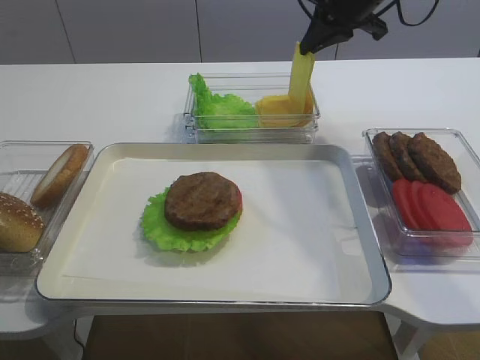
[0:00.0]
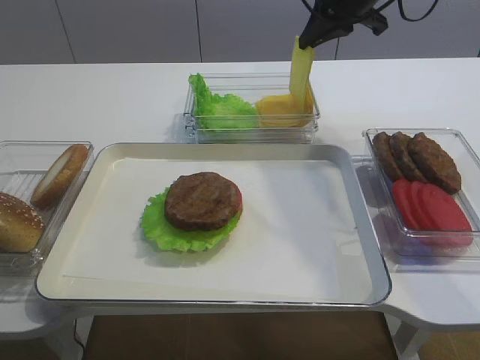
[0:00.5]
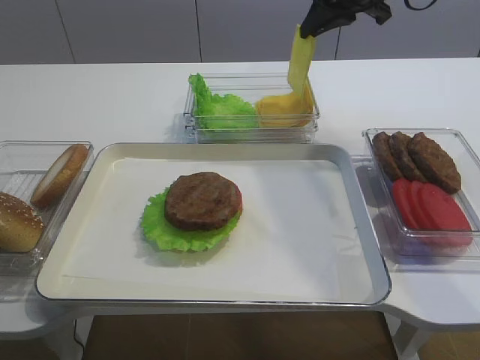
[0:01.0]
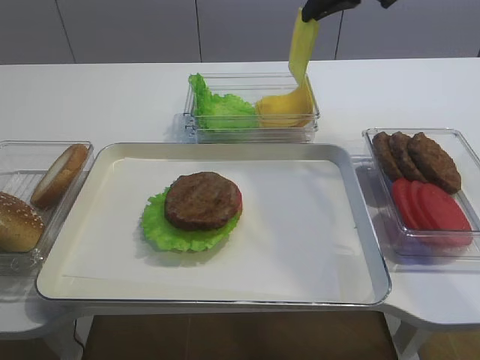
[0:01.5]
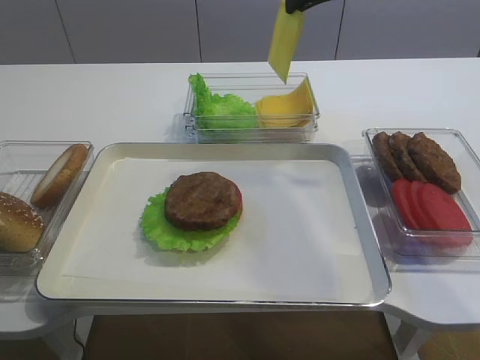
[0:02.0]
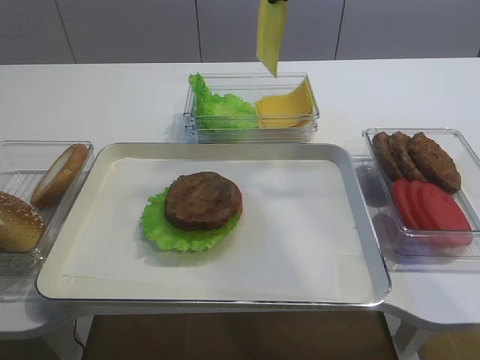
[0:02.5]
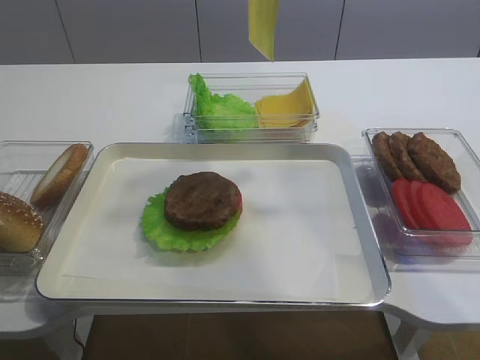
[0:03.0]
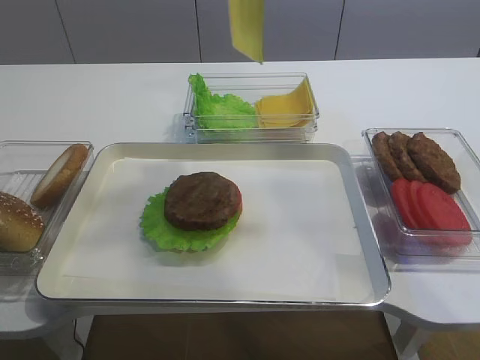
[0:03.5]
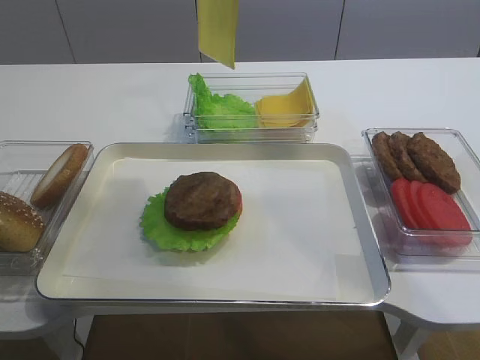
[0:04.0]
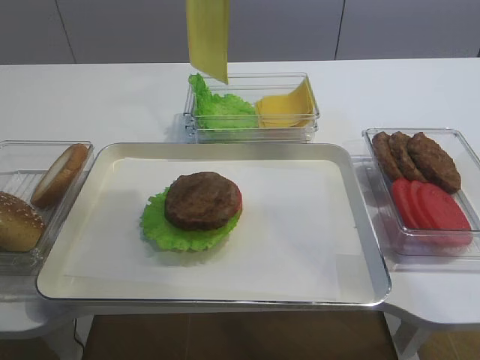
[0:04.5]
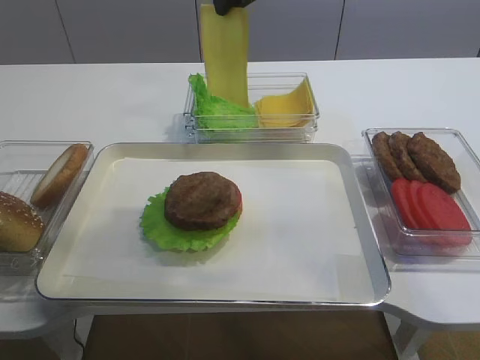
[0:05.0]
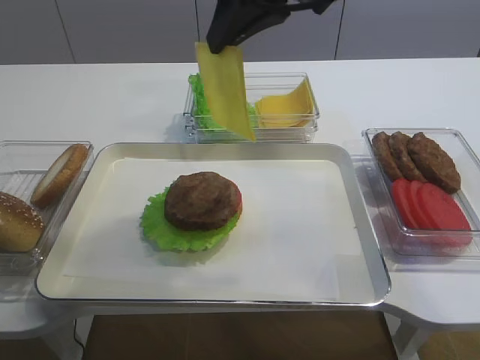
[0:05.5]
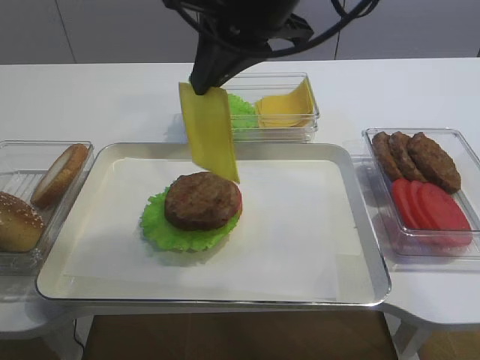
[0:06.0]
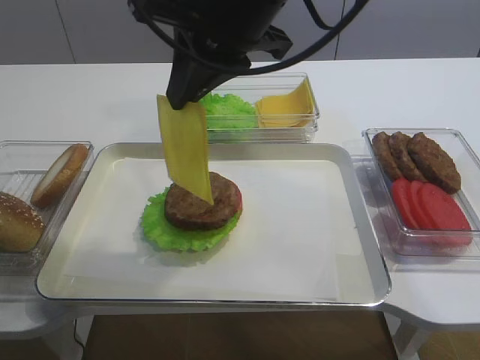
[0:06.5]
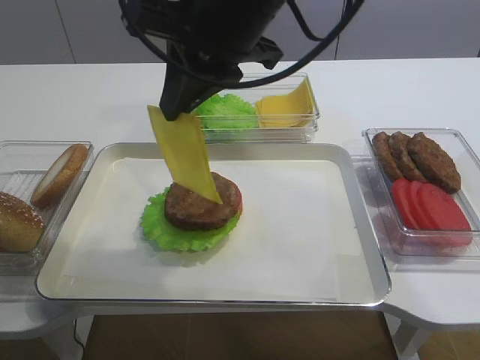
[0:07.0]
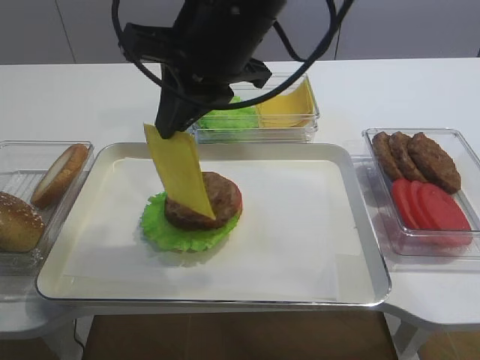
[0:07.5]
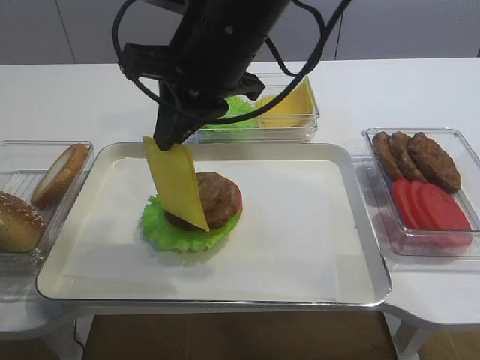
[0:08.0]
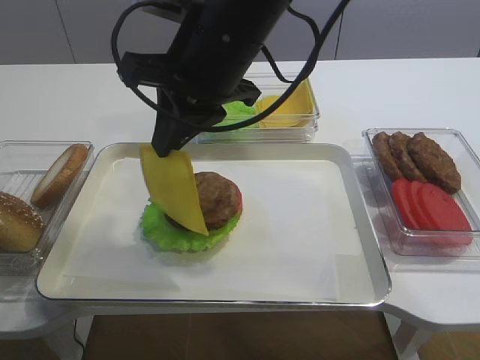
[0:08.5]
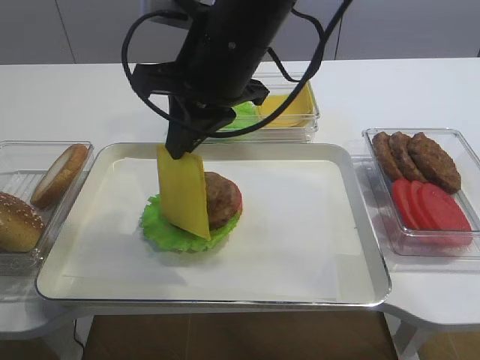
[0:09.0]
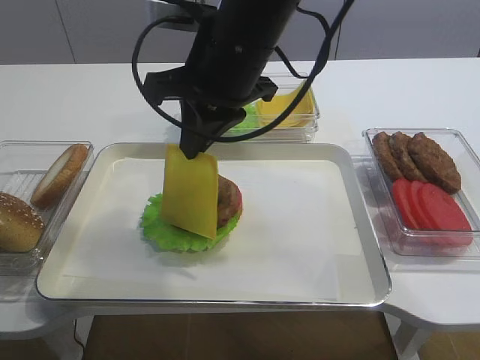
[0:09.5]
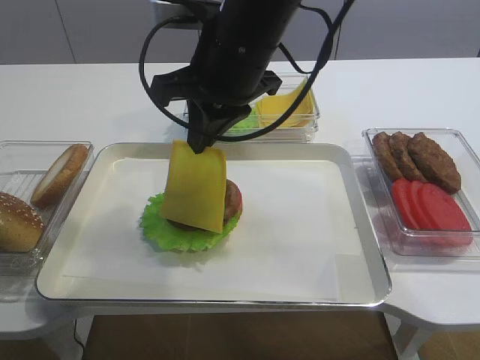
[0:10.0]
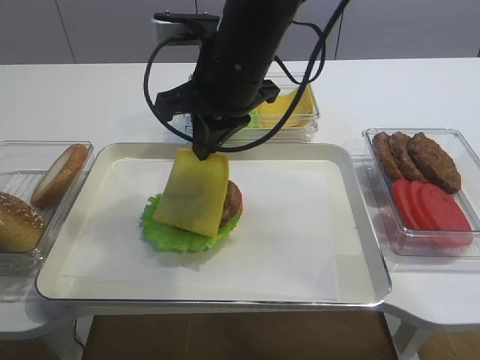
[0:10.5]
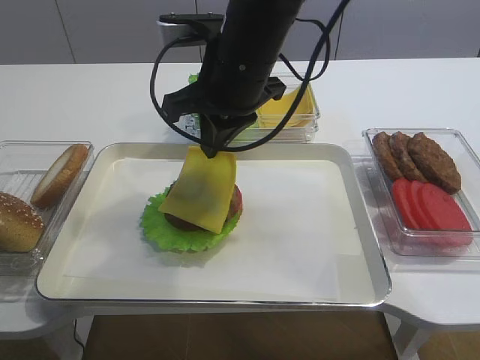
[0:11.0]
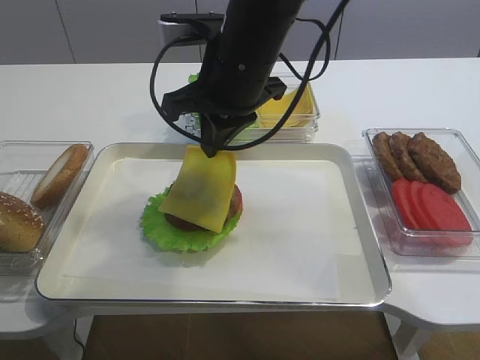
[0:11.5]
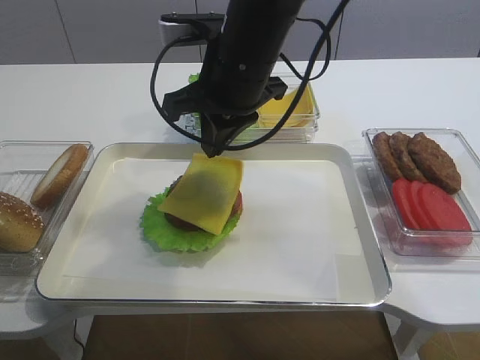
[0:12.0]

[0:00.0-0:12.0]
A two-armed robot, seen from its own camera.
Step, 0:00.0 to 0:02.0: Pick up the cheese slice with the right gripper.
0:00.0 to 0:02.0: The right gripper moves upward, some 5 cm.
0:02.0 to 0:04.0: The right gripper heads backward, to the left and upward, covering roughly 15 cm.
0:04.0 to 0:06.0: The right gripper moves backward and downward, some 10 cm.
0:06.0 to 0:08.0: The right gripper ends up roughly 5 cm from where it was.
0:08.0 to 0:12.0: The grippers move only a little.

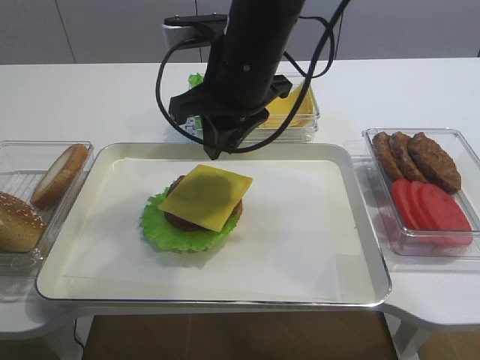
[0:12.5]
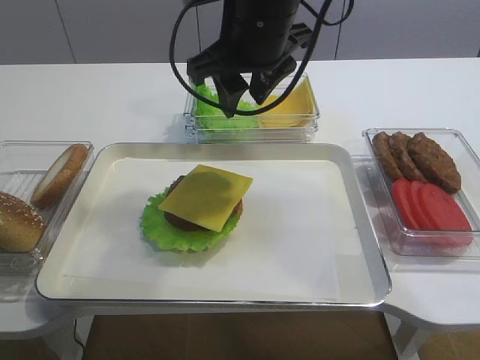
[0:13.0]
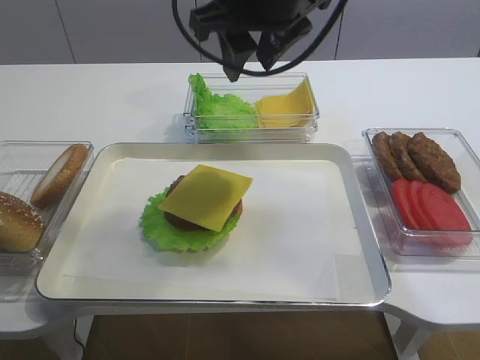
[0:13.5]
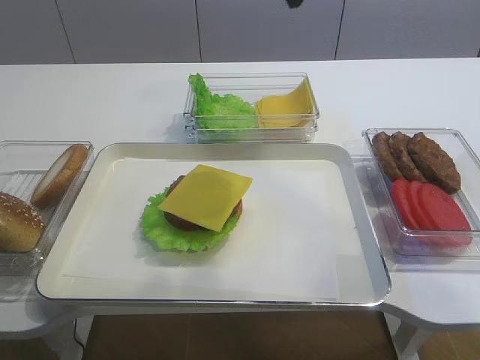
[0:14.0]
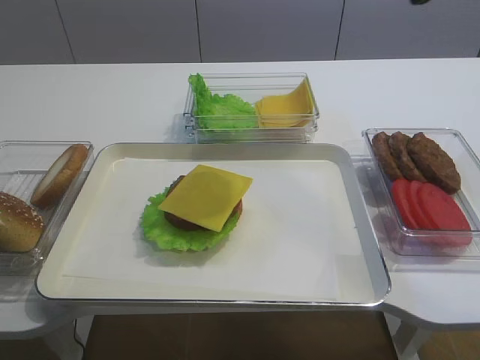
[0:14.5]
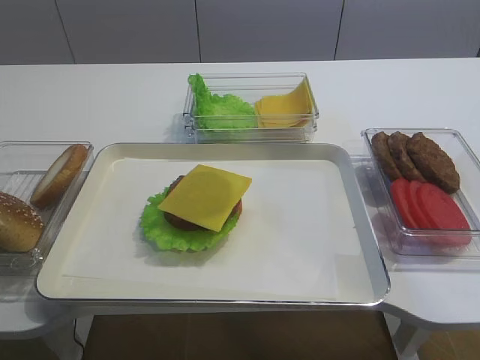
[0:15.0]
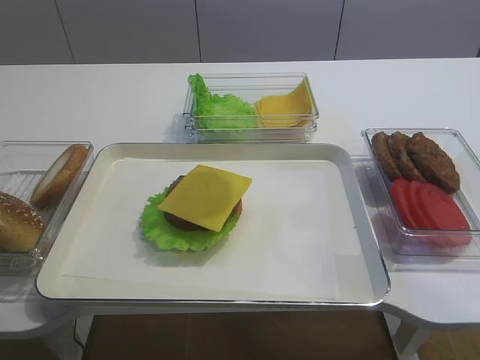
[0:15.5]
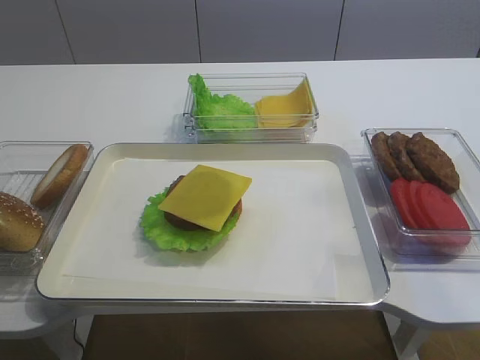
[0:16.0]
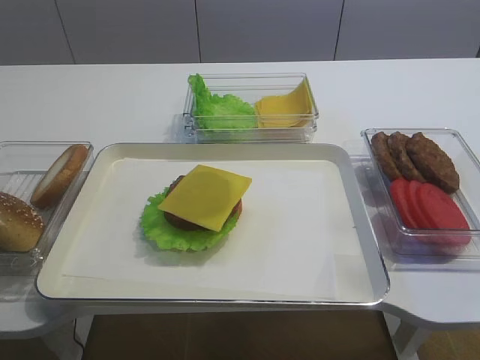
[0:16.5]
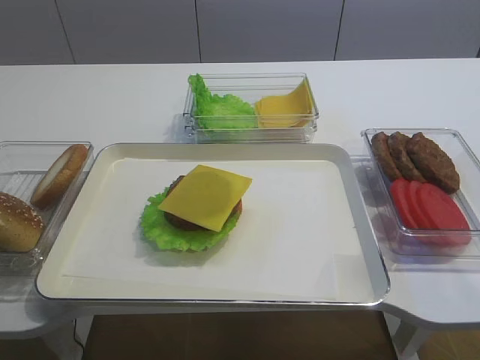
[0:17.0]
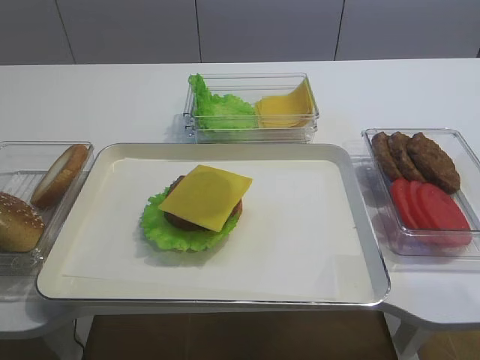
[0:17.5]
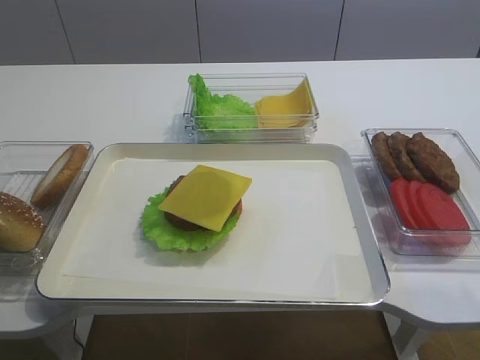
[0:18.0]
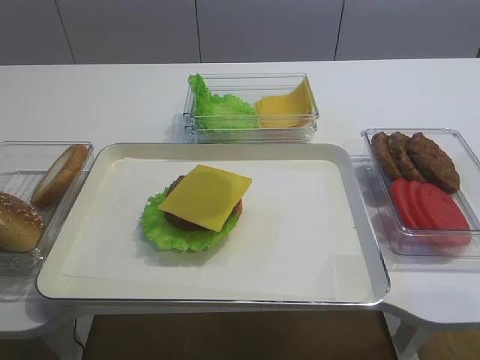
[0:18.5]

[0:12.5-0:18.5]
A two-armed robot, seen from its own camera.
0:12.5 to 0:14.5: The right gripper is displaced upward, to the right and backward by some 25 cm, and opens its fingers.
0:14.5 to 0:16.5: The right gripper travels backward, to the right and downward by some 20 cm.
0:16.5 to 0:18.5: The right gripper is displaced downward by roughly 10 cm.

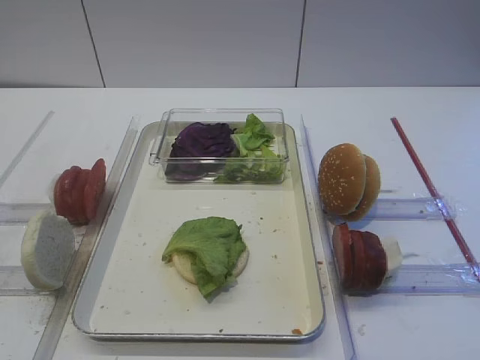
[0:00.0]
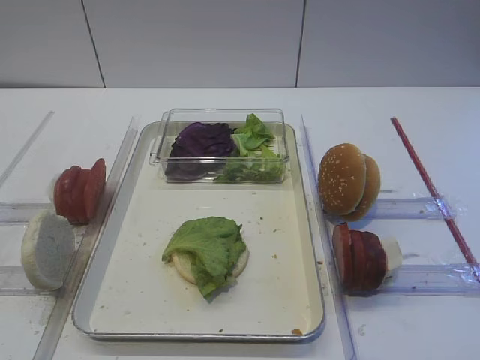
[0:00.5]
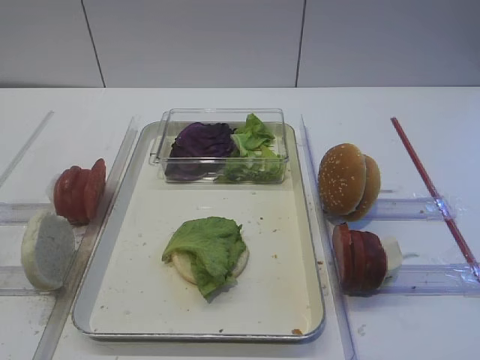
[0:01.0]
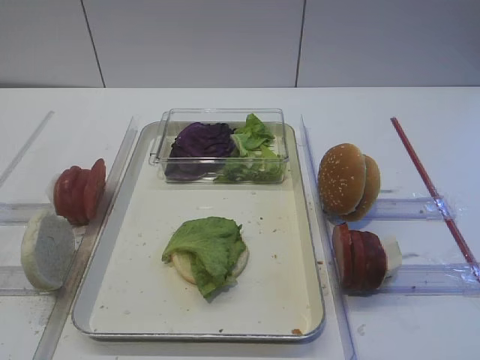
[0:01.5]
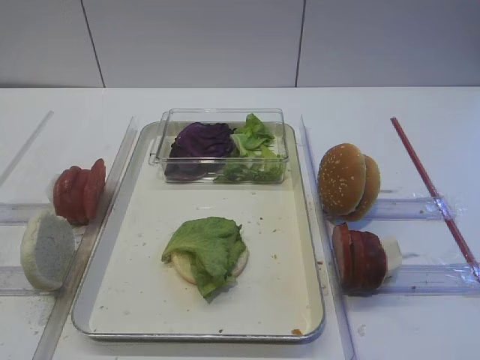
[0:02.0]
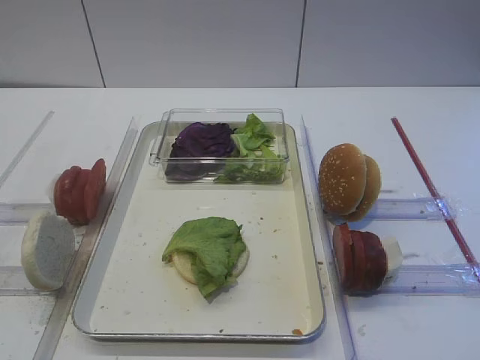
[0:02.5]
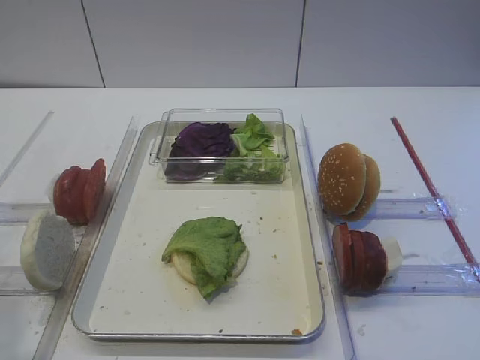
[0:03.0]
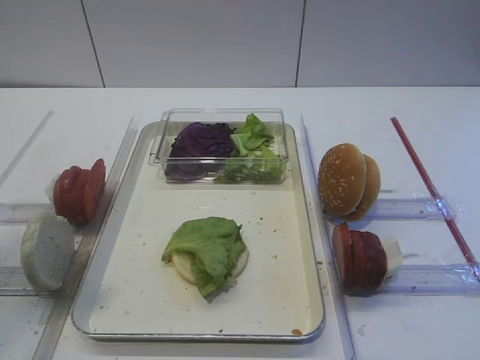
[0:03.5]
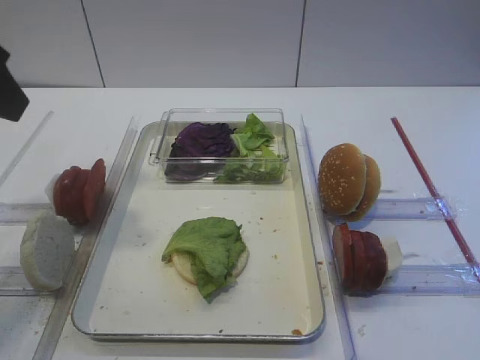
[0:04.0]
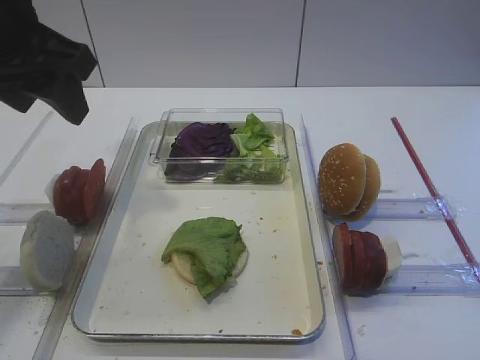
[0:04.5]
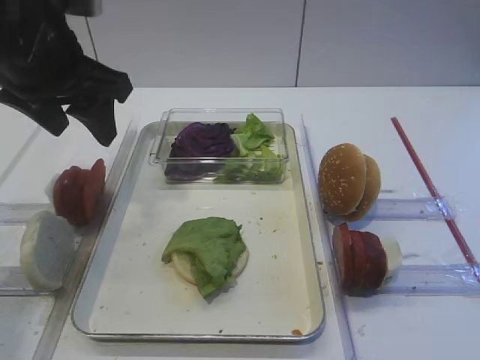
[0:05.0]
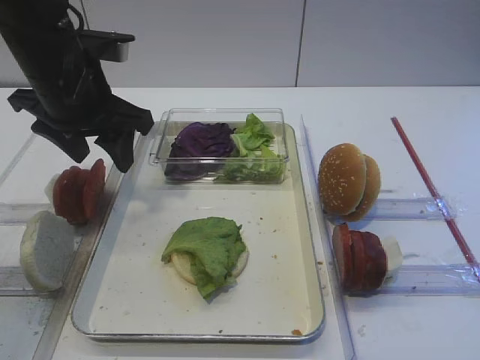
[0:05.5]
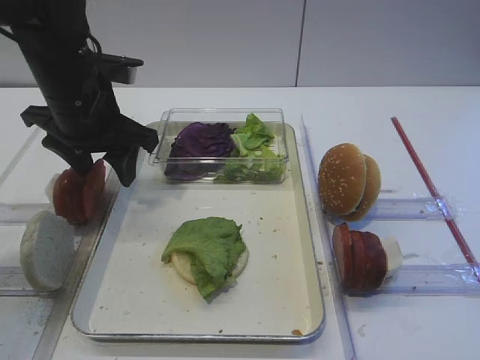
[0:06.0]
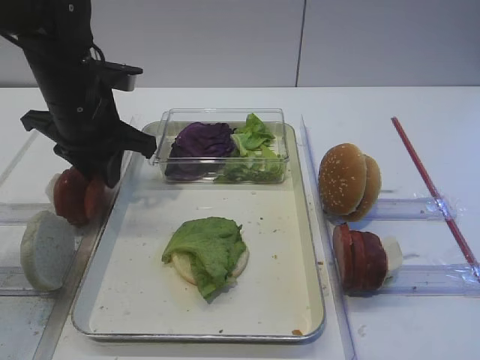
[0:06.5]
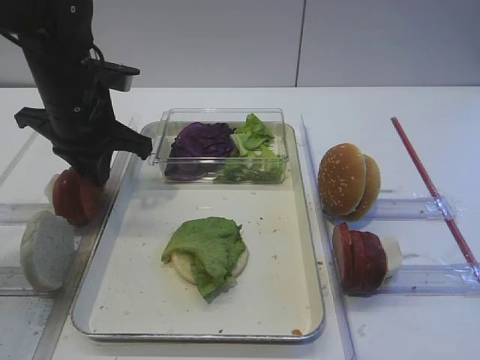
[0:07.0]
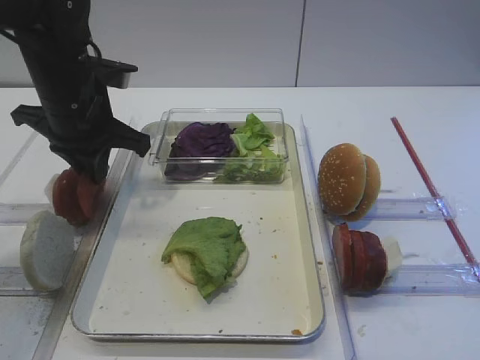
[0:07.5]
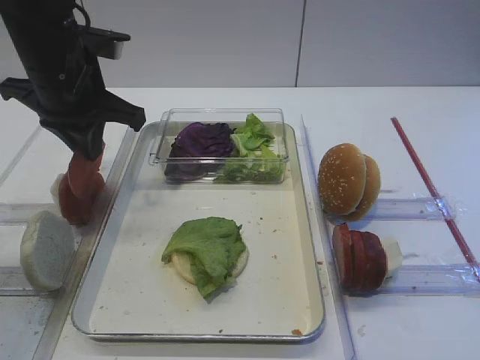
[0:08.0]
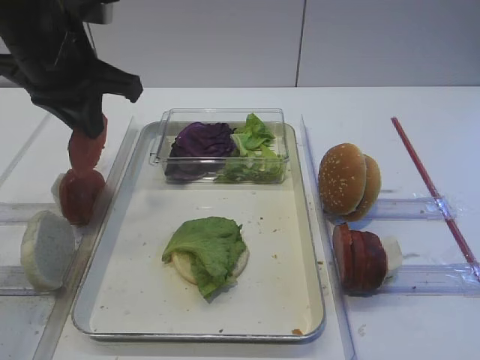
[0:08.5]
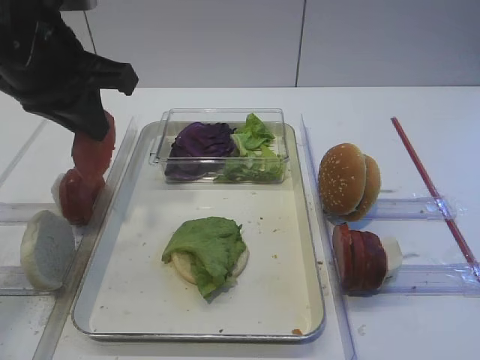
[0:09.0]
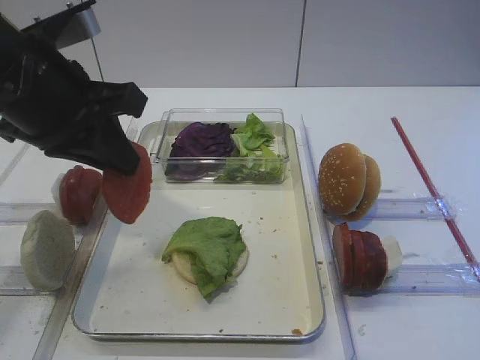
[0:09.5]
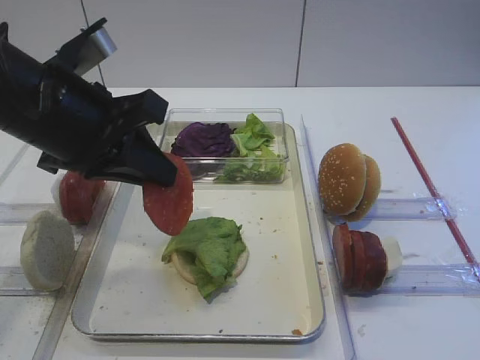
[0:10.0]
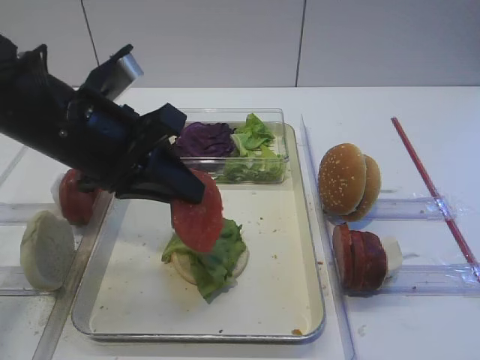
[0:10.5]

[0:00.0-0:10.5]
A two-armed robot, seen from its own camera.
Step, 0:00.0 to 0:07.5: Pick up the tomato slice with the left gripper.
0:02.0 to 0:04.0: The left gripper is displaced forward and upward by some 25 cm.
0:04.0 to 0:06.5: The left gripper is displaced forward and downward by roughly 20 cm, and closes up.
0:06.5 to 0:08.5: The left gripper is displaced upward by roughly 10 cm, and closes.
0:08.5 to 0:10.5: The left gripper moves backward and downward, approximately 10 cm.
